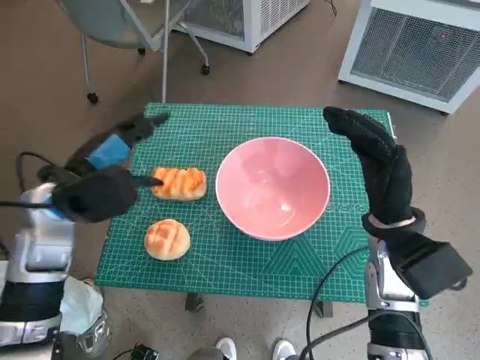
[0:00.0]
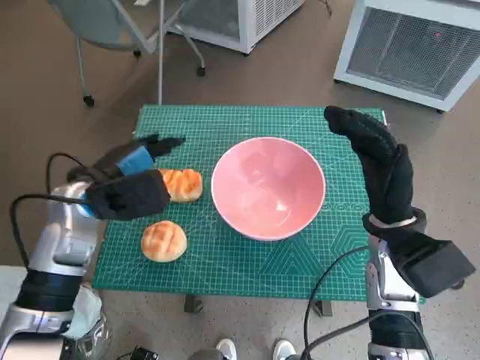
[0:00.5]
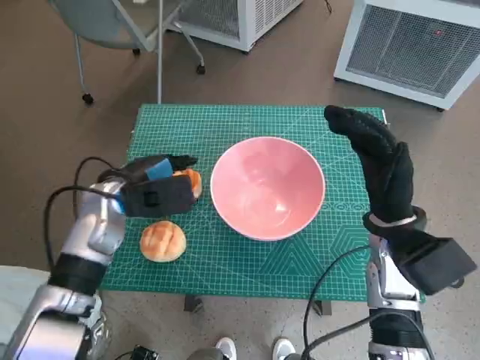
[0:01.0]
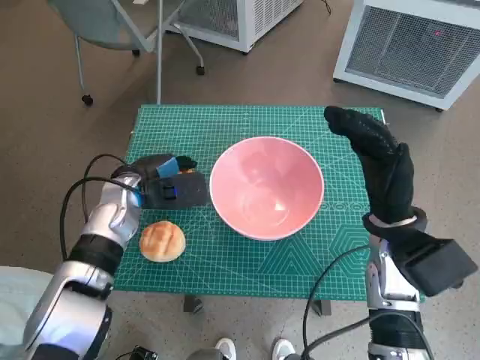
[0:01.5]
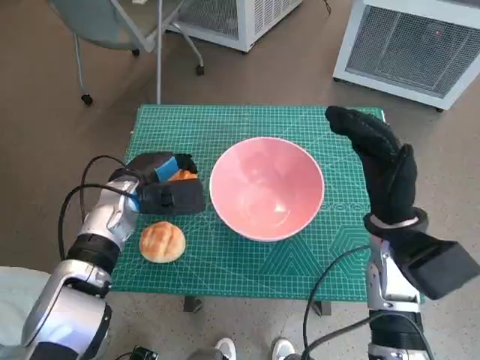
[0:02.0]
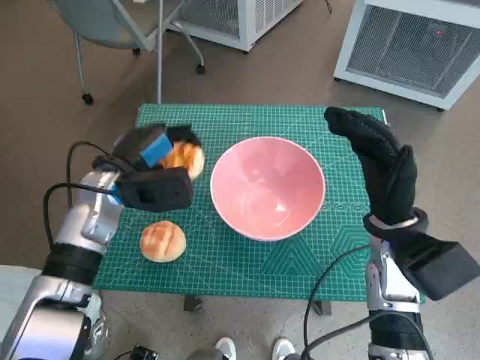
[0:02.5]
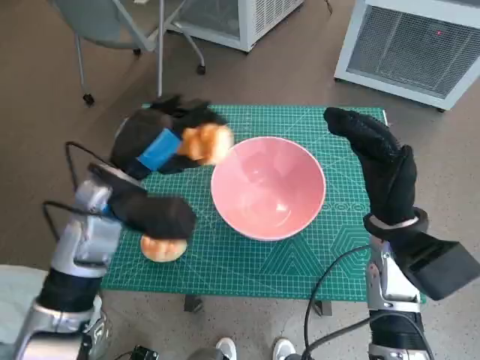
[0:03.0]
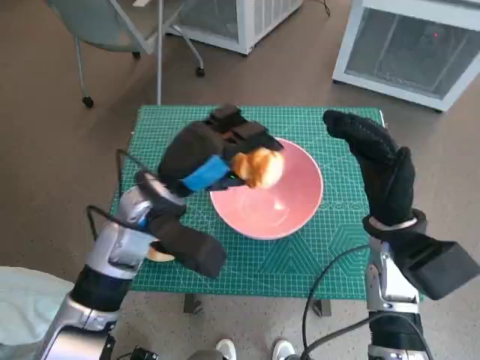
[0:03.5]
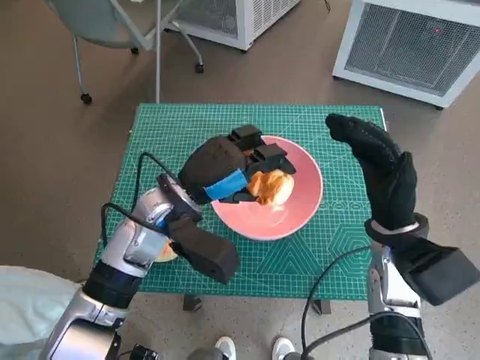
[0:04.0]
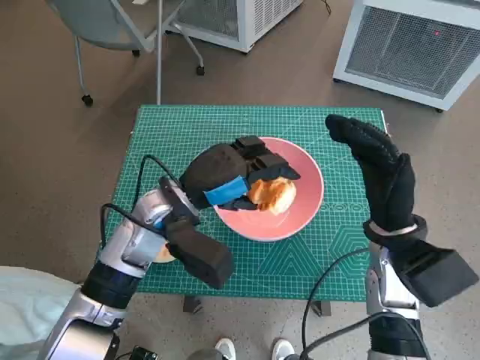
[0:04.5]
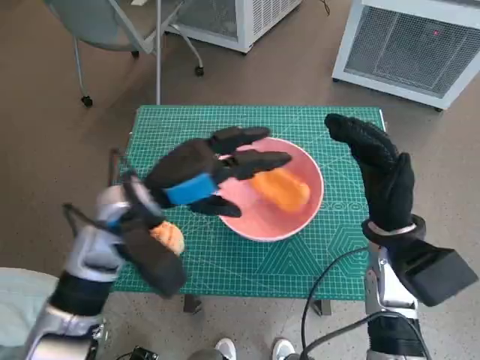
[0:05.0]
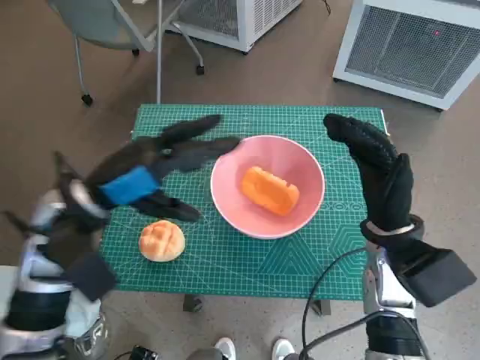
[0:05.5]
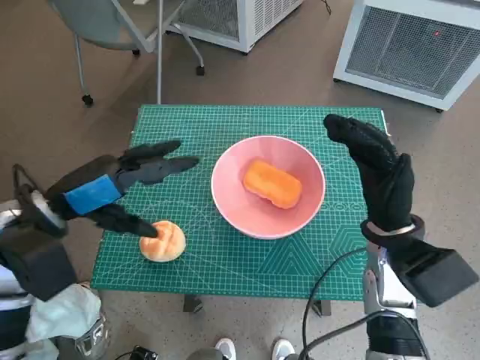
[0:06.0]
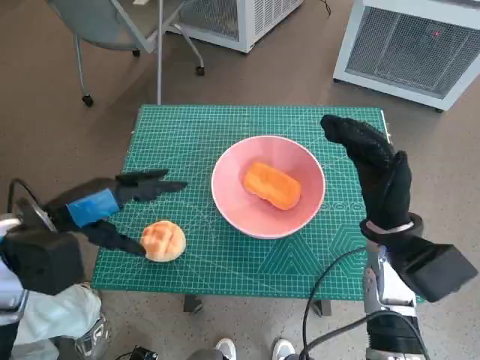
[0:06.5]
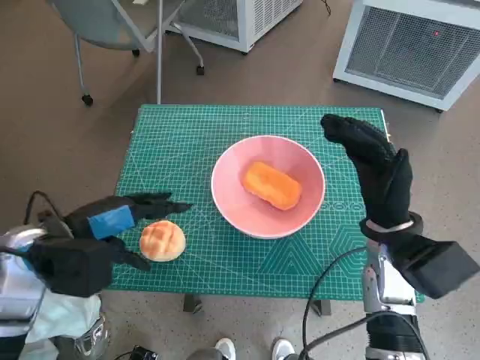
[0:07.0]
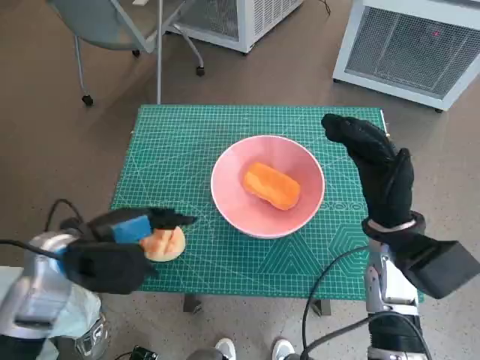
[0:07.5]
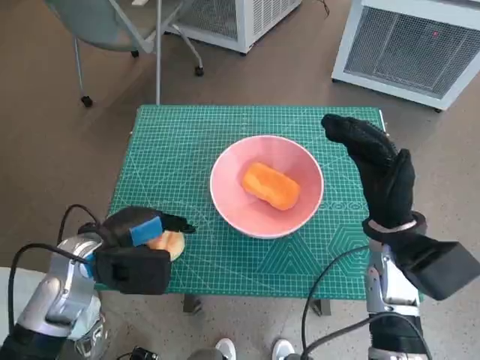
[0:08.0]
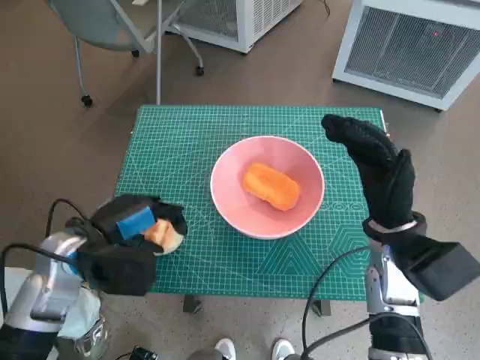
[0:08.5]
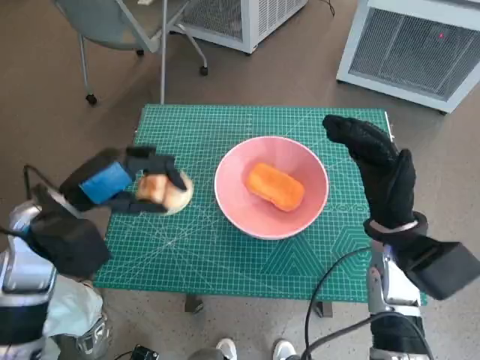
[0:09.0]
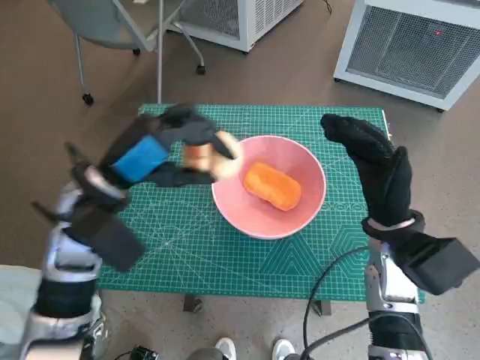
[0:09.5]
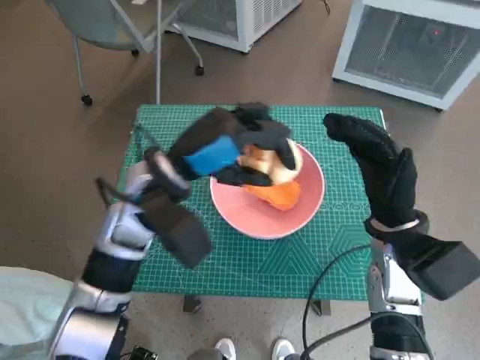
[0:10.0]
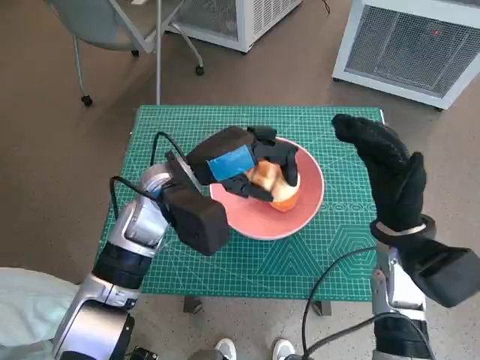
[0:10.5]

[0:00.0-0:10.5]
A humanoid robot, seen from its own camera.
Task of the whole recording: Push the bowl into the center of the table and put the bread into the bowl.
Step, 0:02.0 to 0:04.5: Place the long bread in pink bowl with left hand.
Step, 0:05.0 to 0:08.0: Grasp the round bread with left hand.
0:00.0 to 0:02.0: The left hand heads downward and forward, covering some 10 cm.
0:02.0 to 0:04.0: The left hand travels to the right and upward by approximately 10 cm.
0:04.0 to 0:06.5: The left hand shifts roughly 15 cm to the left.
0:06.5 to 0:08.5: The left hand is displaced downward by approximately 5 cm.
0:08.5 to 0:10.5: The left hand goes some 15 cm to the right and forward.

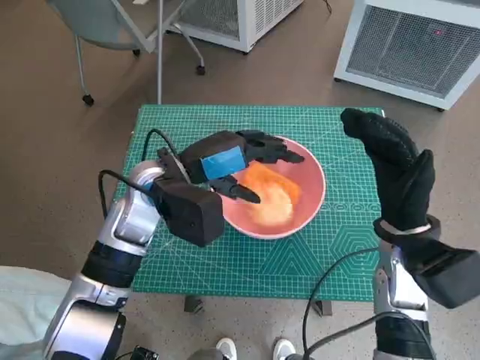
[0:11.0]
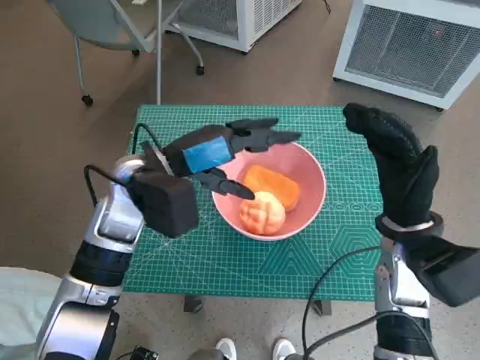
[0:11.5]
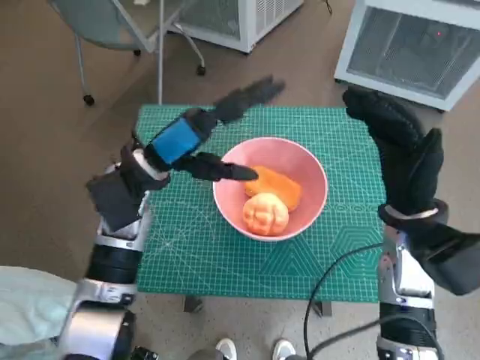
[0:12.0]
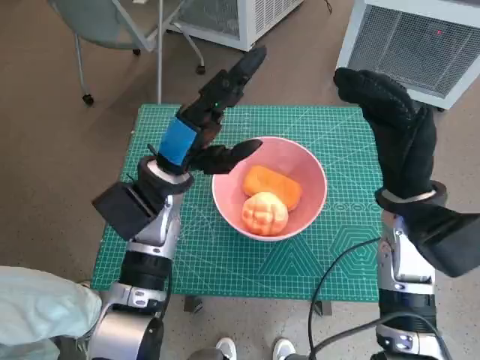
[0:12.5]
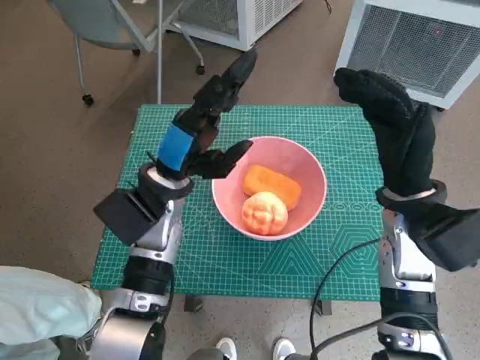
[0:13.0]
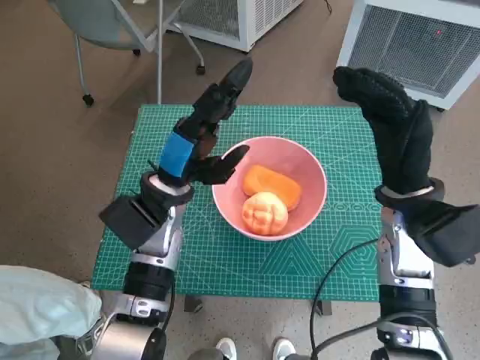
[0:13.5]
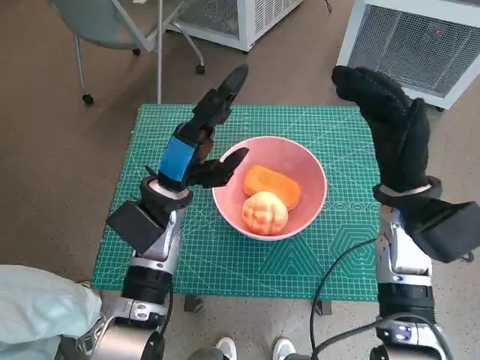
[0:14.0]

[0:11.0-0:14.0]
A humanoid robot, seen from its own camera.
Task of the whole recording: Push the bowl into the center of the table and put the bread into the bowl.
0:12.5 to 0:14.0: The hands stay close to where they were, moving slightly.

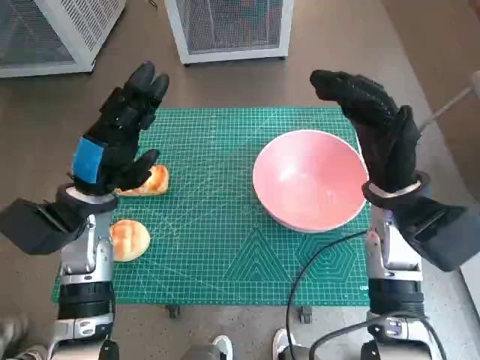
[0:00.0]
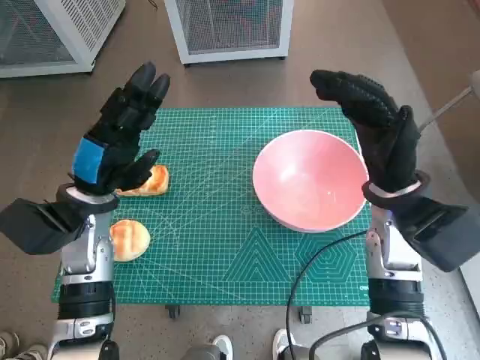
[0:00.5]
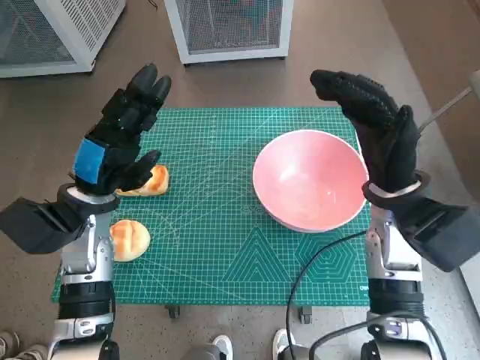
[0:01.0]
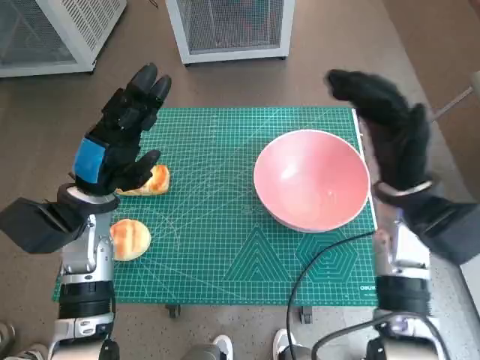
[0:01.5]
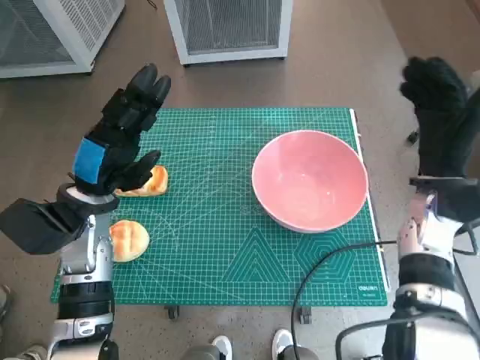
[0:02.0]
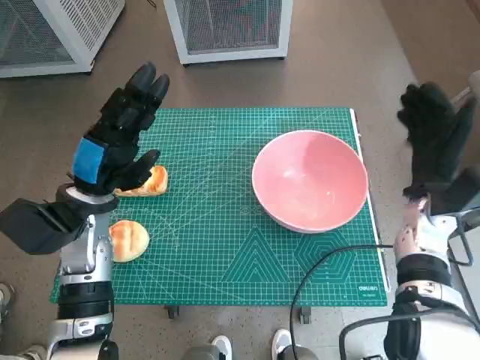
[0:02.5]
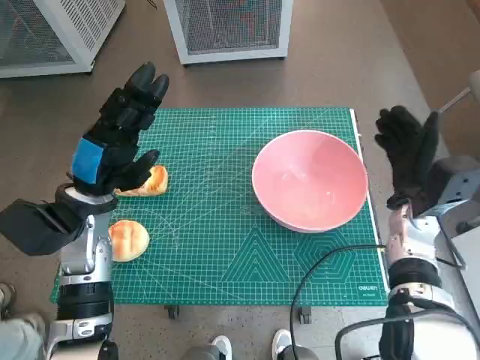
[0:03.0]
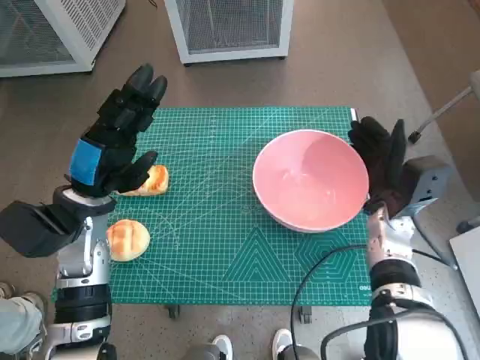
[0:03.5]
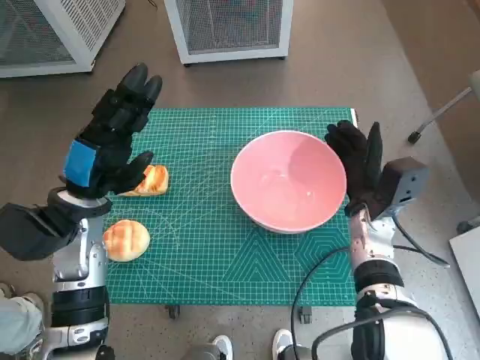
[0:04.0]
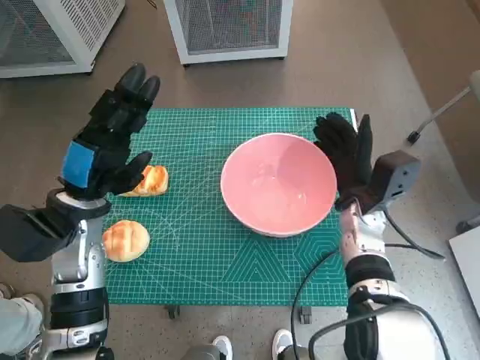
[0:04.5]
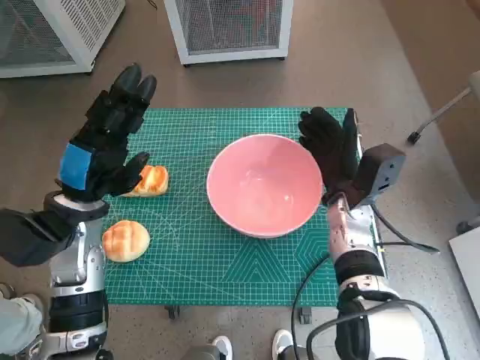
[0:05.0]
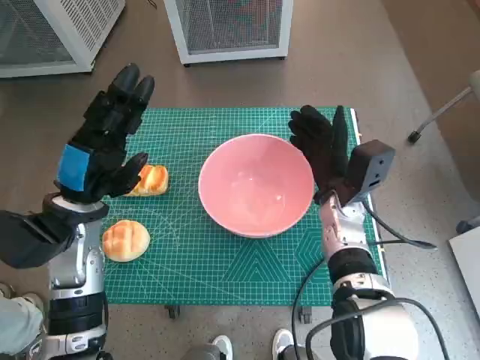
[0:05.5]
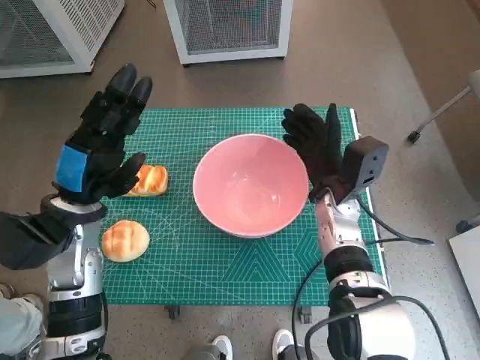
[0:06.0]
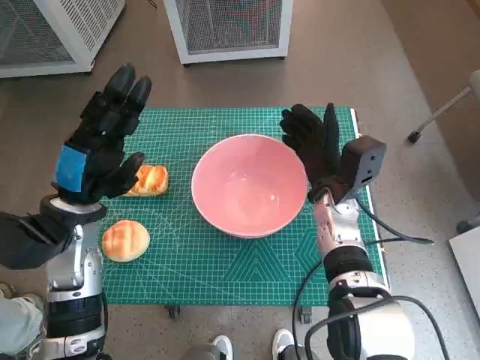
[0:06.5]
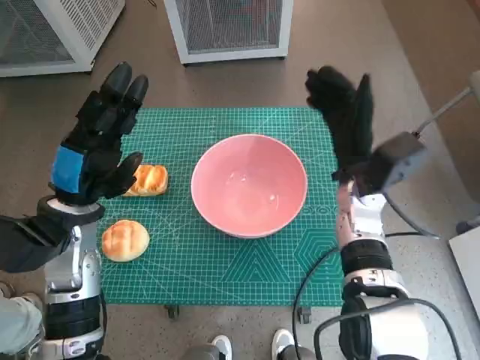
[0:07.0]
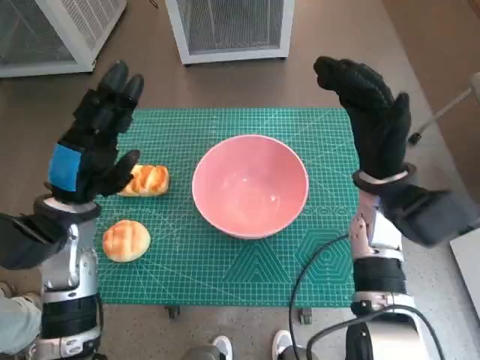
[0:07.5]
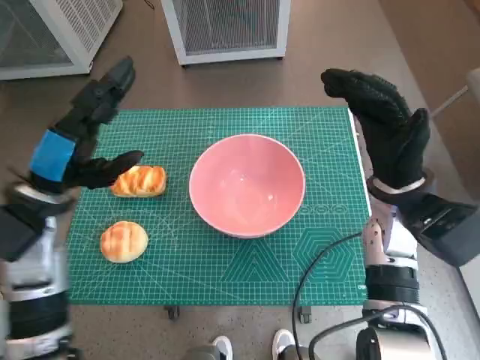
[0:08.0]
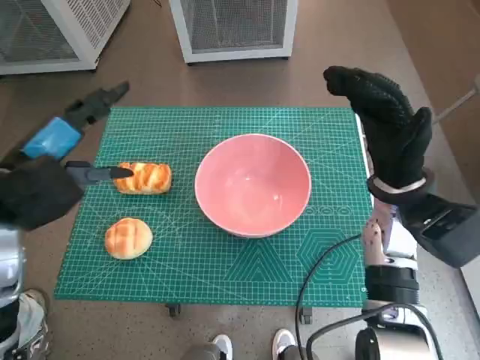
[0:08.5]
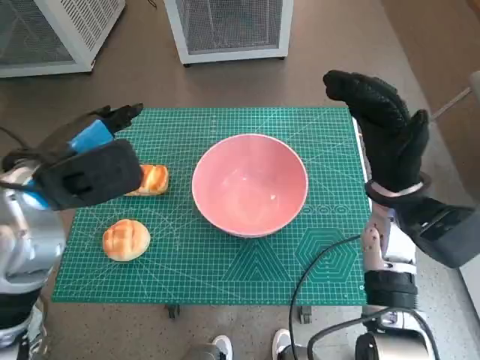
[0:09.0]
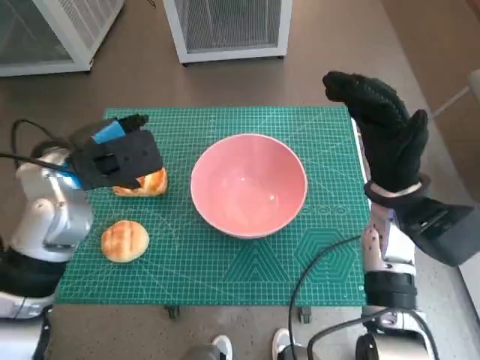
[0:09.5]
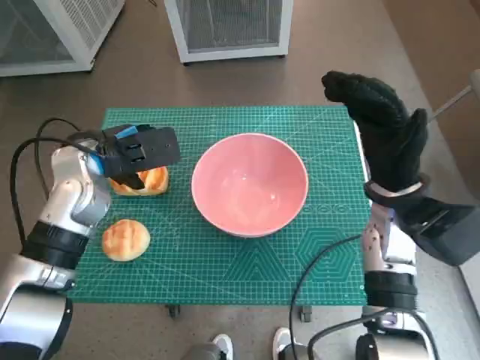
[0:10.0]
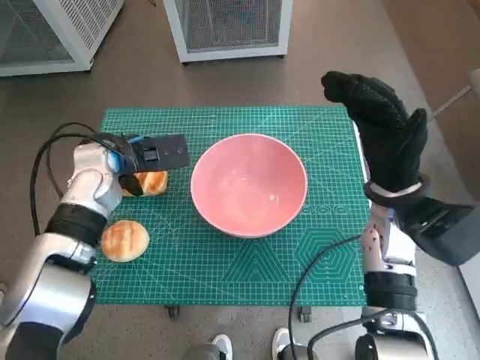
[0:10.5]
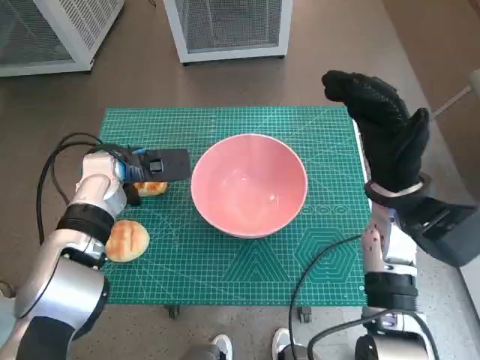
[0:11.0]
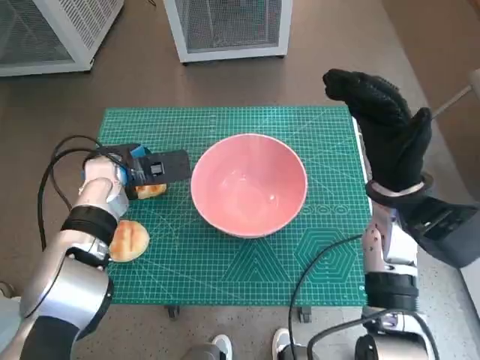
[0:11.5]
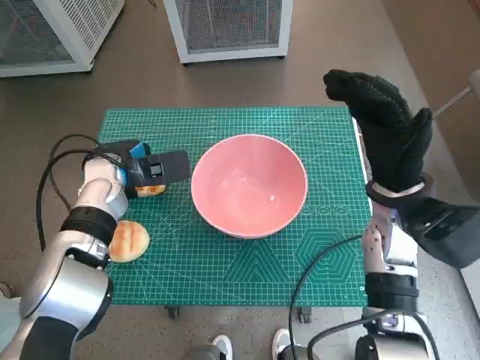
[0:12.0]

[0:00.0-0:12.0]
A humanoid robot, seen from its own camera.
Task of the whole recording: Push the bowl into the center of the table and put the bread into the bowl.
Step, 0:00.0 to 0:06.5: Move the pink bowl to the center of table with right hand.
Step, 0:07.0 to 0:11.5: Grasp the long bread with left hand.
0:02.0 to 0:04.0: The right hand heads downward and to the left, covering approximately 10 cm.
0:04.0 to 0:06.0: The right hand moves to the left, roughly 5 cm.
0:06.0 to 0:08.0: The right hand shifts some 10 cm upward and to the right.
0:08.0 to 0:10.0: The left hand is displaced forward by roughly 5 cm.
0:10.0 to 0:12.0: The left hand moves downward, roughly 5 cm.
